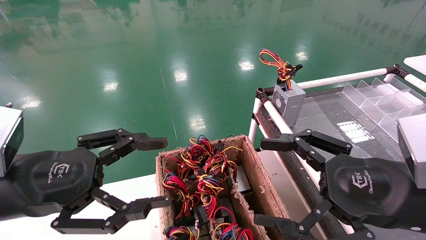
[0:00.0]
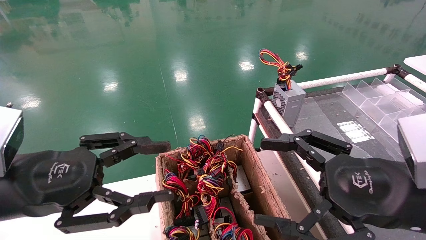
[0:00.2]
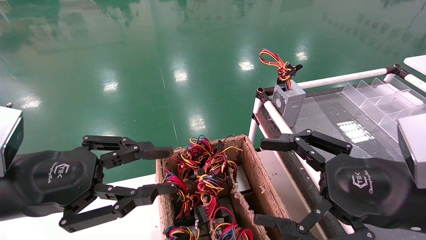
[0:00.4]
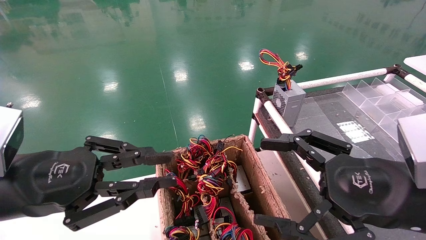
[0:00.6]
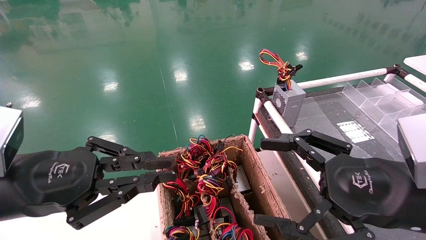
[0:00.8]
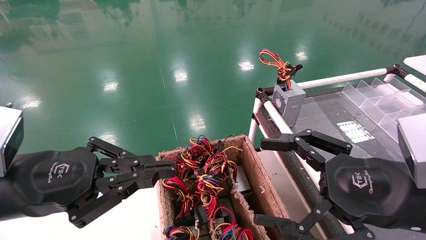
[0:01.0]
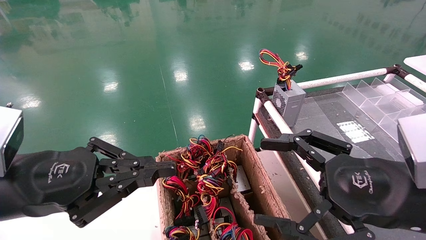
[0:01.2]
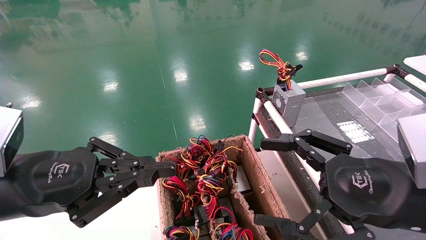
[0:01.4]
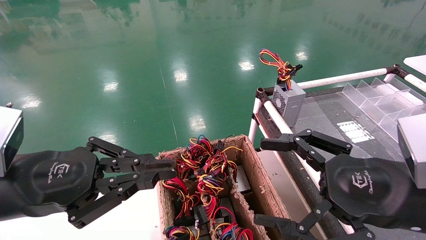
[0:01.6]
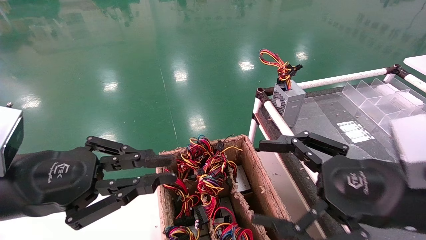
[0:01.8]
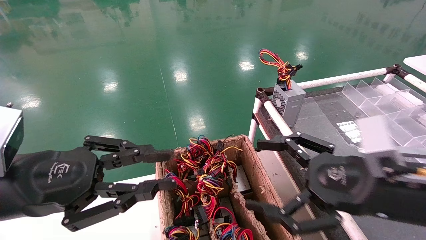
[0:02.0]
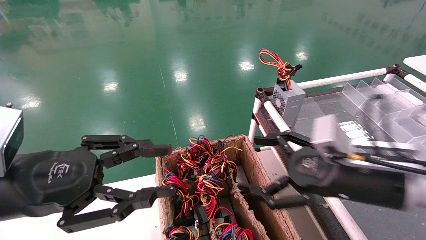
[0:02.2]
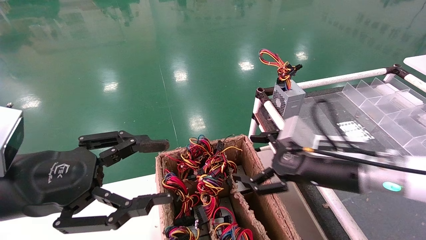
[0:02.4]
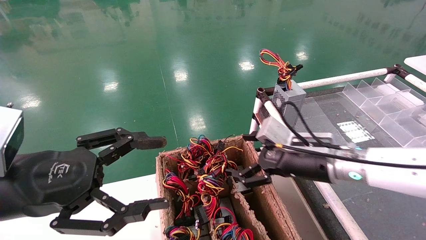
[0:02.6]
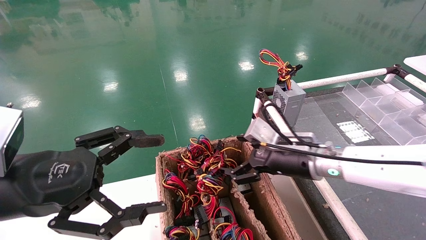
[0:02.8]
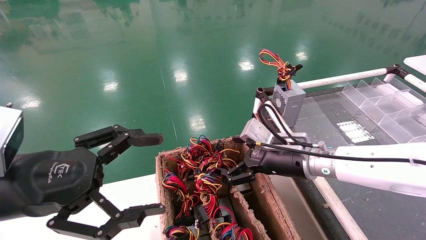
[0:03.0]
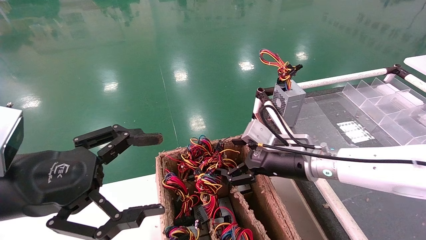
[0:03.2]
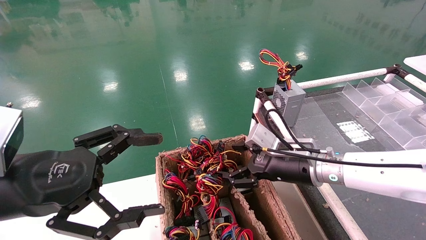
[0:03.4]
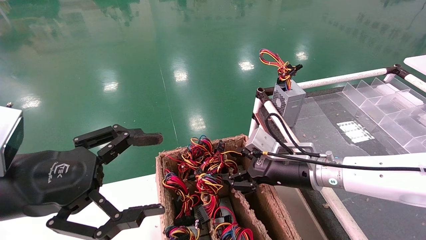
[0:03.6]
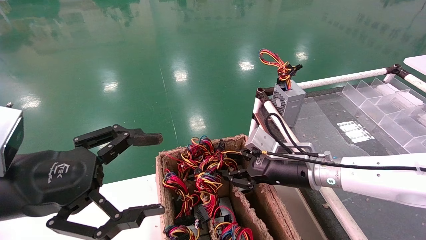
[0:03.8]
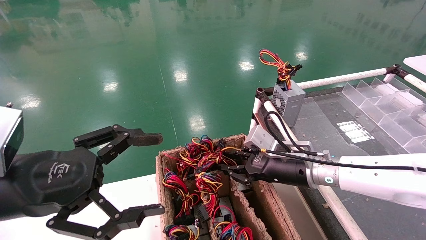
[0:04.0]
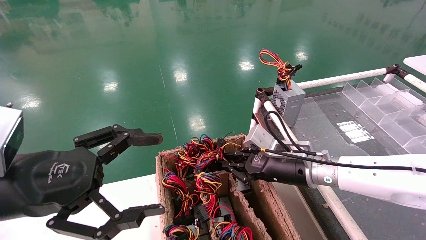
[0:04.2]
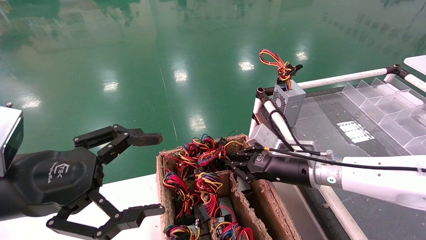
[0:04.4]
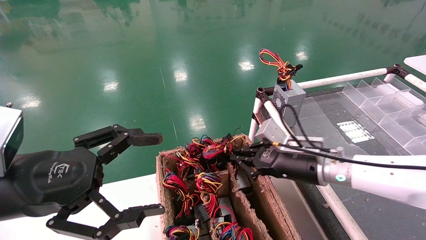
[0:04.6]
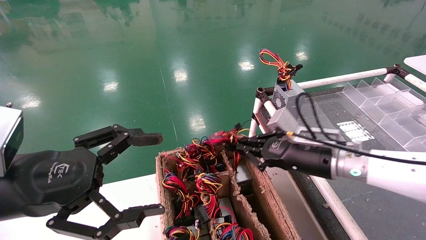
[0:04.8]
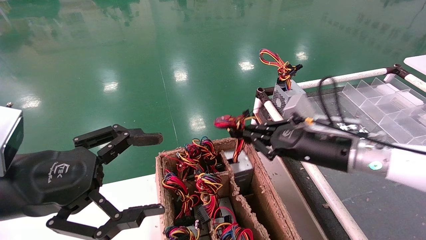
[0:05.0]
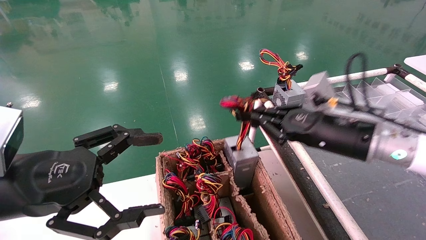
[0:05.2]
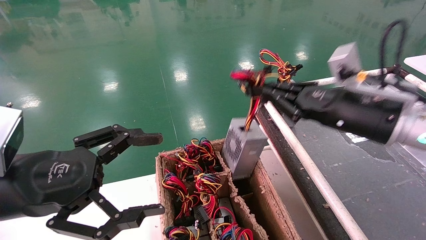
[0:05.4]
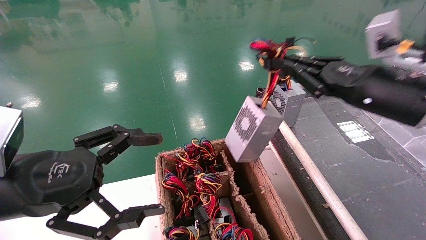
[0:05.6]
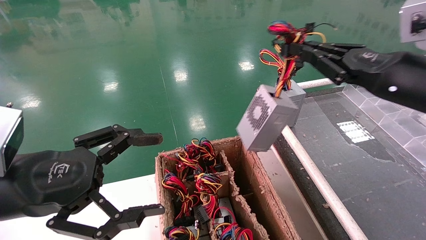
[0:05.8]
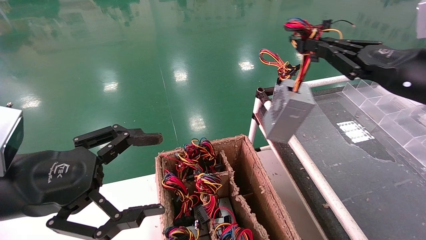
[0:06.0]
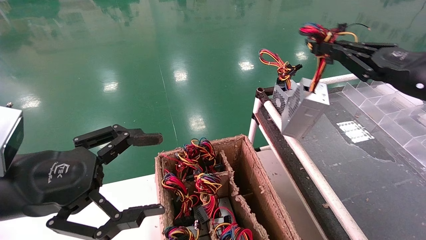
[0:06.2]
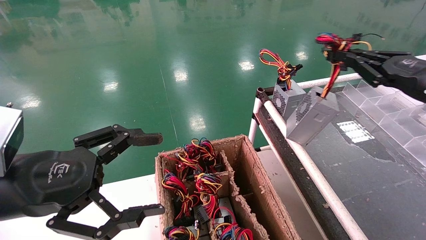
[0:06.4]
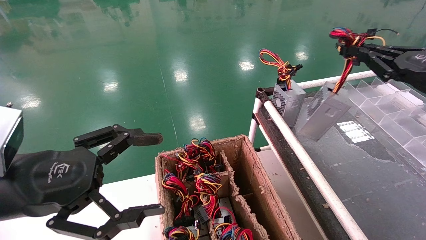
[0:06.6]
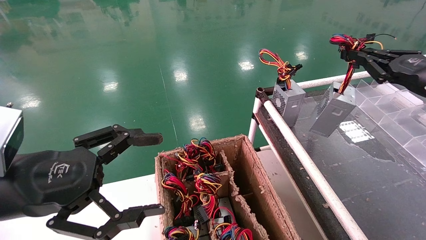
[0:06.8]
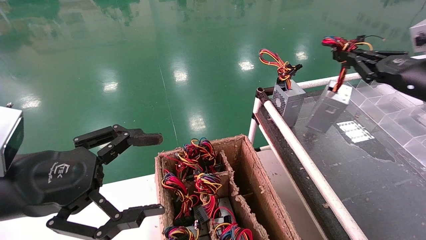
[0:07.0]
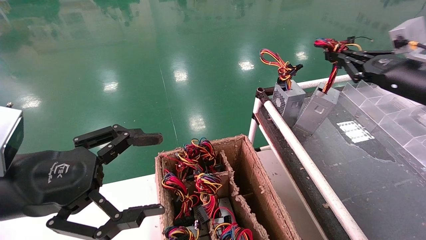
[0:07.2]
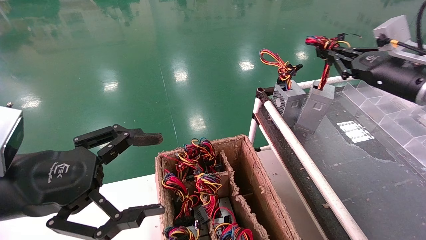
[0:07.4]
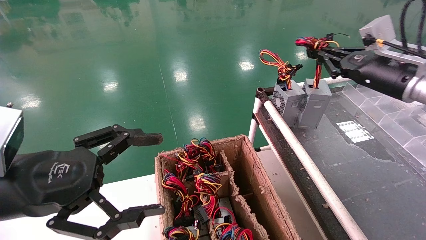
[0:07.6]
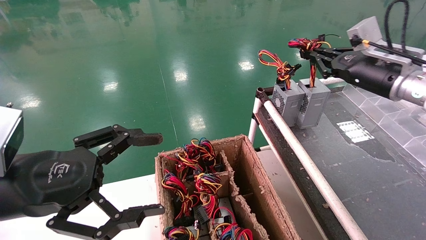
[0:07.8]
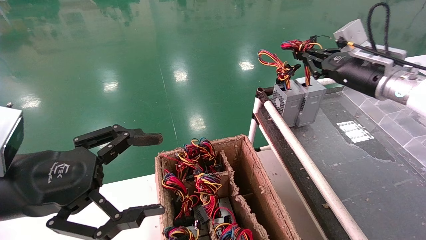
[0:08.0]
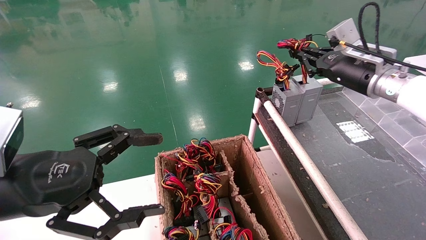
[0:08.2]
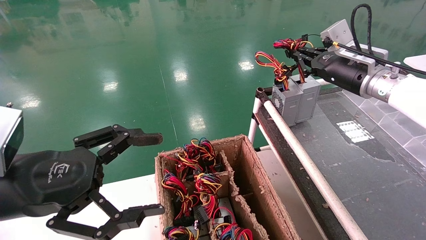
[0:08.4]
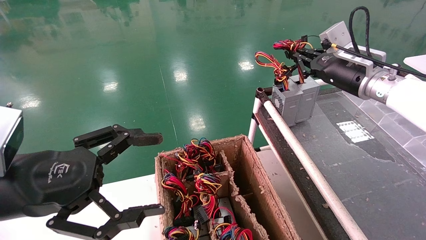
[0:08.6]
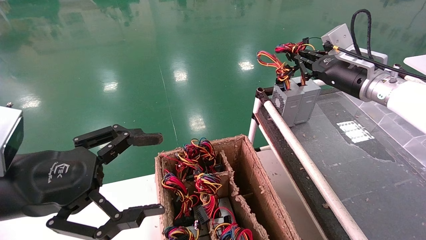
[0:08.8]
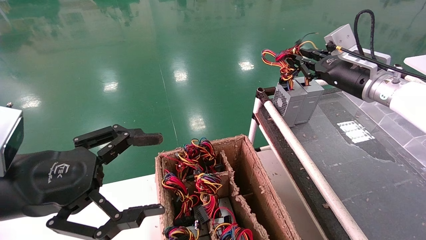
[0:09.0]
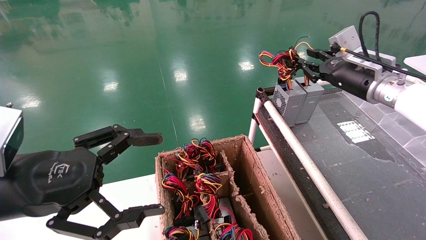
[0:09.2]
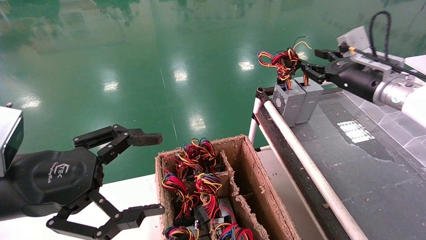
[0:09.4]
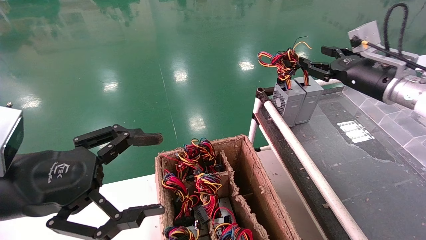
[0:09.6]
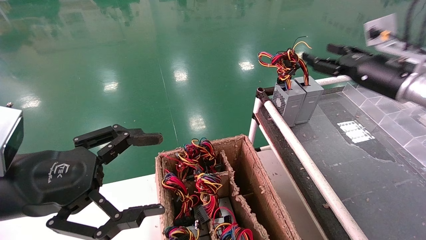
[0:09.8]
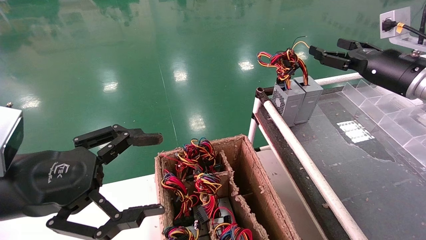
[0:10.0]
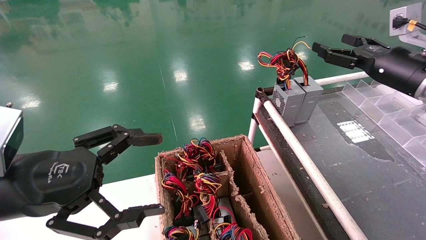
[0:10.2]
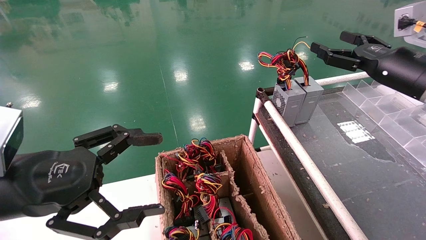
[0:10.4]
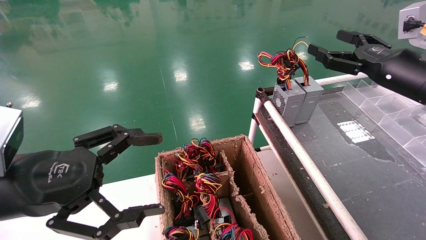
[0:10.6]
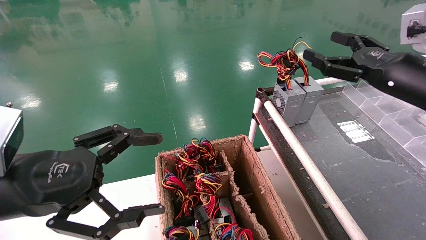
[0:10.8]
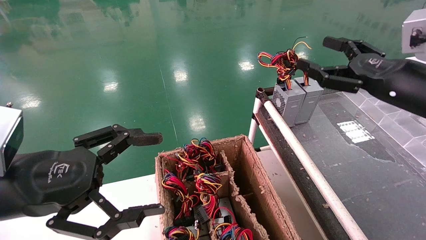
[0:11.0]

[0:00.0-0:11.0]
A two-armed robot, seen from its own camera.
Step, 0:01.2 to 0:04.4: Grab and lift the power supply from the large box.
Step, 0:04.6 to 0:08.8: Place the power supply on the operating table.
0:00.0 to 0:01.6: The left gripper closes its fingers.
0:01.6 to 0:03.2: The right gripper goes approximately 20 cm forward and to the left, while the left gripper opens up.
0:03.2 to 0:04.8: The right gripper closes its fingers.
0:04.8 to 0:06.2: The right gripper moves to the right and upward, approximately 20 cm.
0:06.2 to 0:07.8: The right gripper is displaced forward by some 10 cm.
0:07.8 to 0:09.4: The grippers make only small movements.
0:09.4 to 0:11.0: The right gripper goes about 10 cm backward, and opens its fingers.

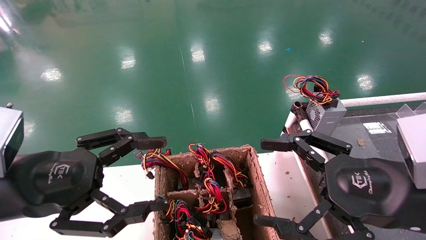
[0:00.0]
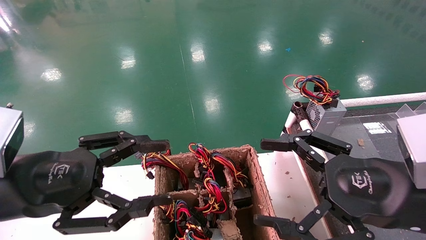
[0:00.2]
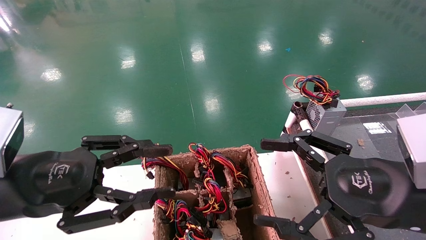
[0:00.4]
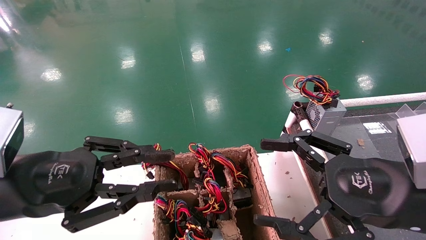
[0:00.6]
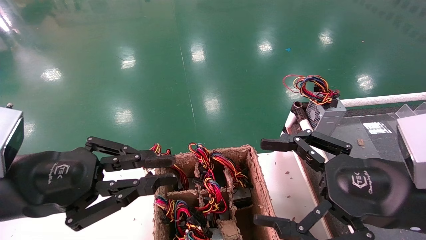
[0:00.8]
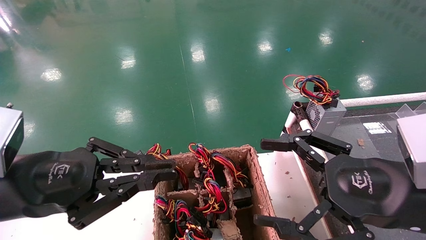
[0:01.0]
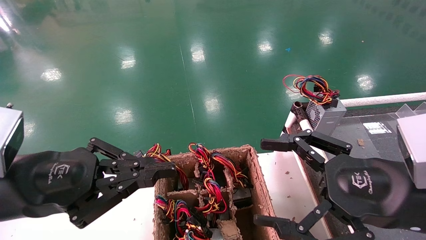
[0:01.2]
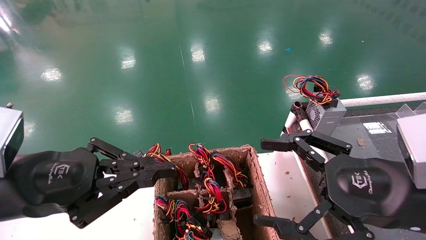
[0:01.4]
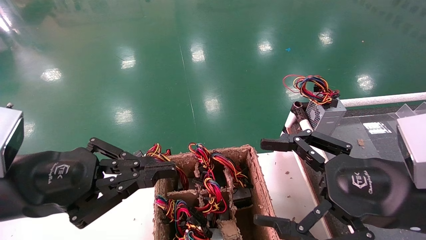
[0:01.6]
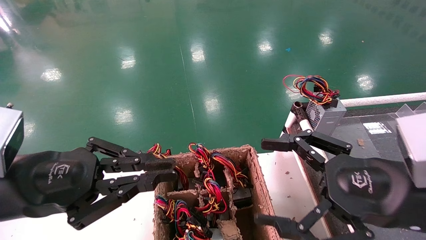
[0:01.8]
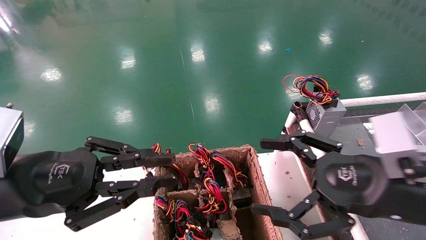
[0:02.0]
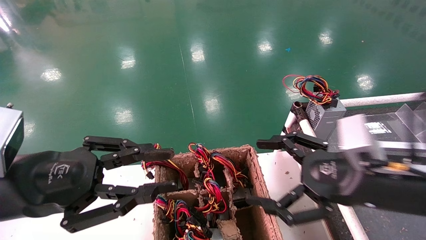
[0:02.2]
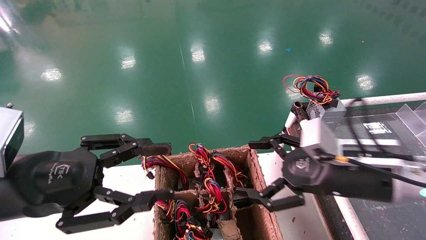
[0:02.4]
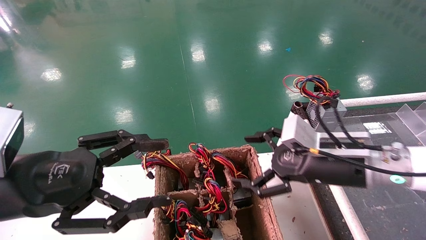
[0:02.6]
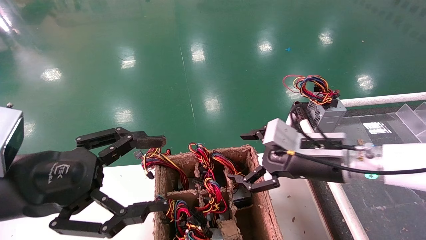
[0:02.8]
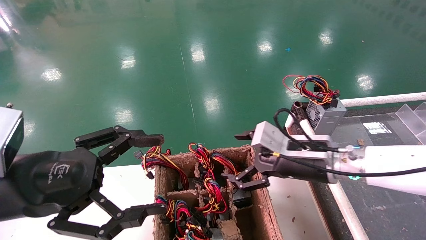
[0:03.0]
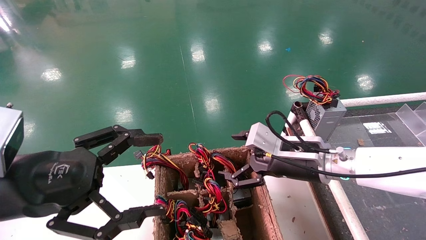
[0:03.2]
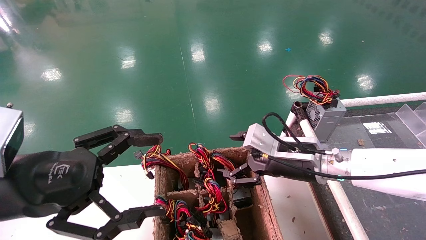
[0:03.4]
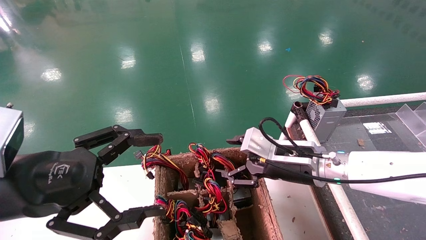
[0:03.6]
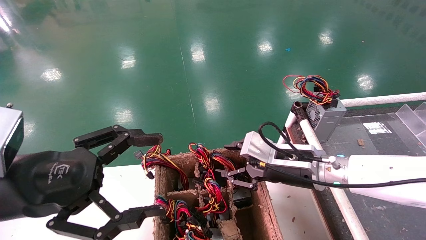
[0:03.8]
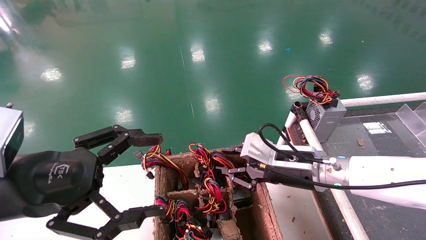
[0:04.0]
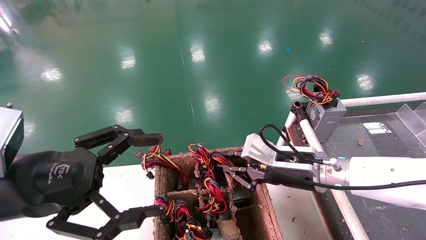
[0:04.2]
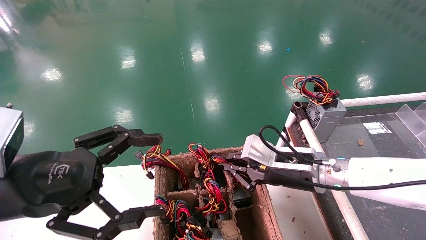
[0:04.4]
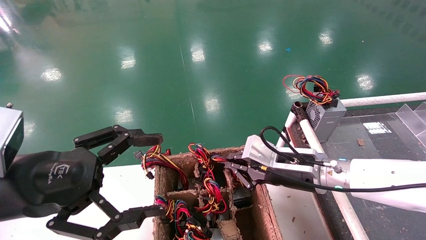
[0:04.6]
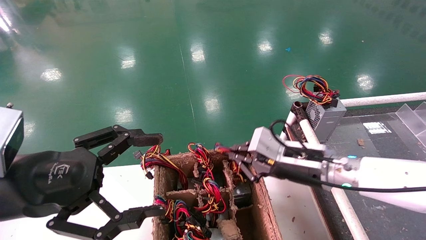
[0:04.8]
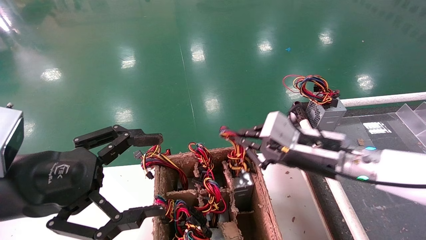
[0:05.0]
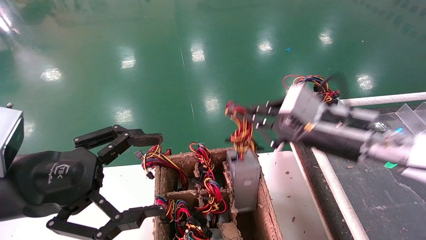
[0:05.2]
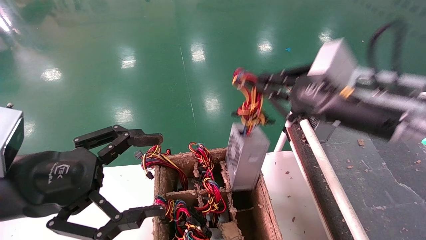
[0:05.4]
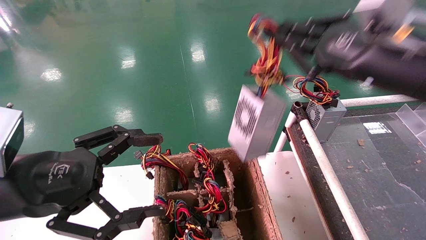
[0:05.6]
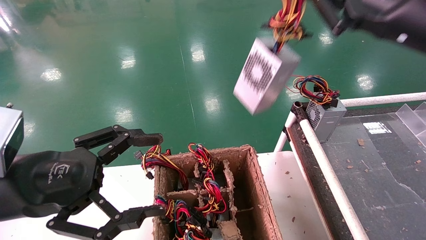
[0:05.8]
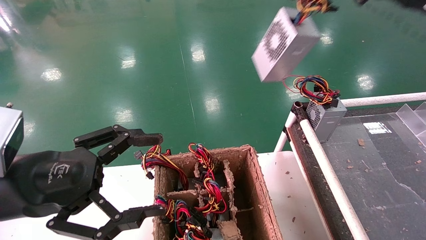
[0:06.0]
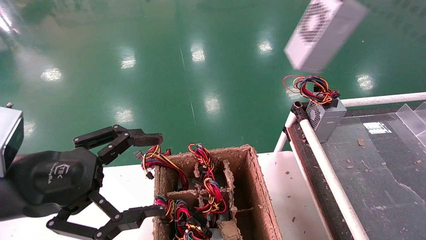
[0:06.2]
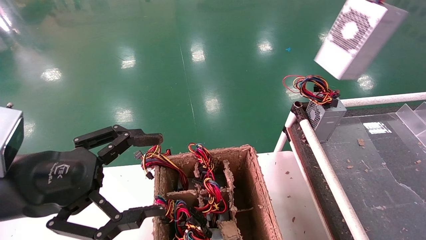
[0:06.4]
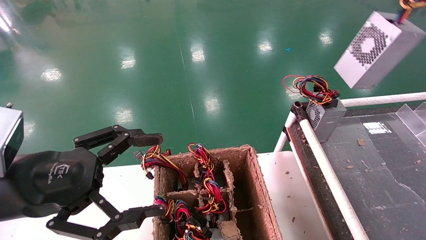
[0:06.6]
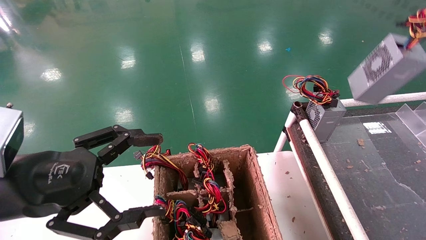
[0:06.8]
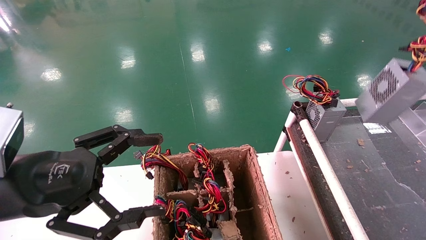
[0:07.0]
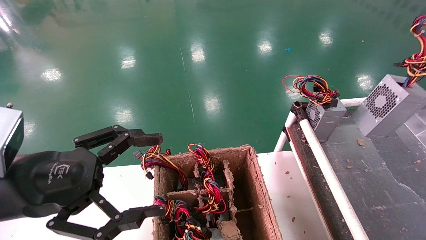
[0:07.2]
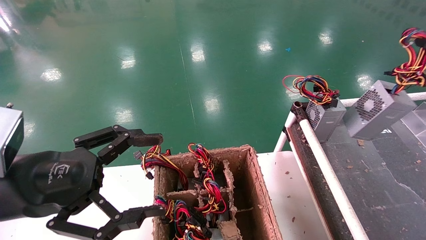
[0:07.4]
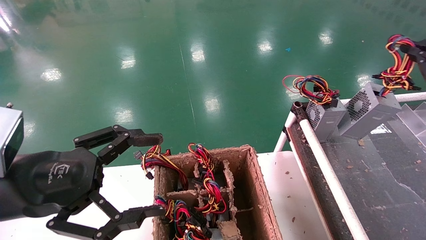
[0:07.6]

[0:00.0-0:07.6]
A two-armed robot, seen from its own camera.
Step, 0:02.0 to 0:04.4: Grab and lift the power supply from the large box.
0:00.0 to 0:01.6: The left gripper closes up.
0:01.6 to 0:03.0: The left gripper opens. The right gripper moves forward and to the left, roughly 15 cm.
0:03.0 to 0:04.6: The right gripper closes up.
0:04.6 to 0:06.0: The right gripper is displaced upward and to the right by roughly 30 cm.
0:06.0 to 0:07.6: The right gripper is displaced to the right and downward by approximately 20 cm.
